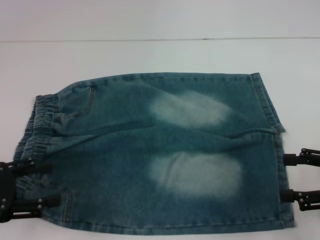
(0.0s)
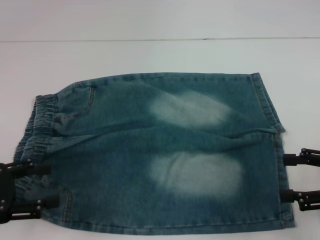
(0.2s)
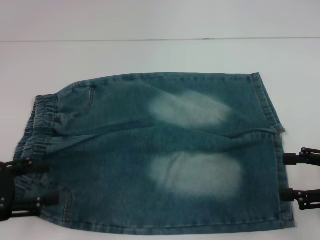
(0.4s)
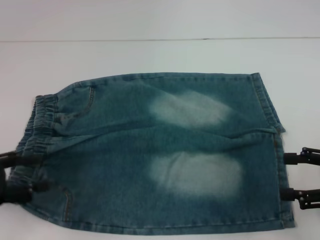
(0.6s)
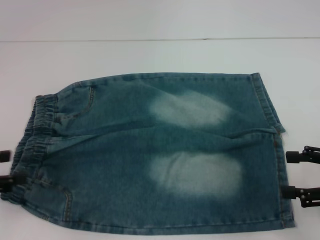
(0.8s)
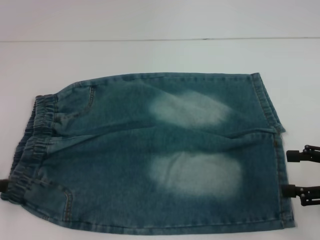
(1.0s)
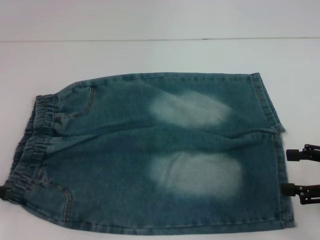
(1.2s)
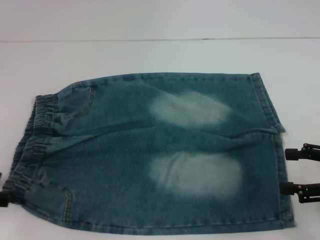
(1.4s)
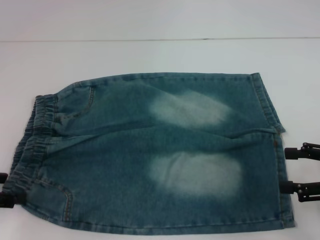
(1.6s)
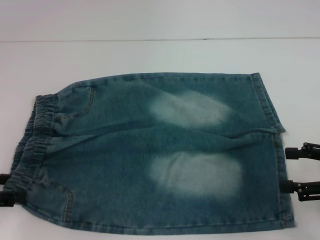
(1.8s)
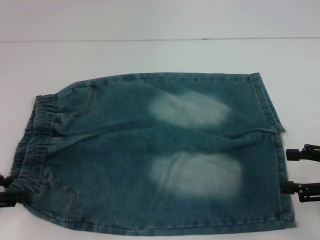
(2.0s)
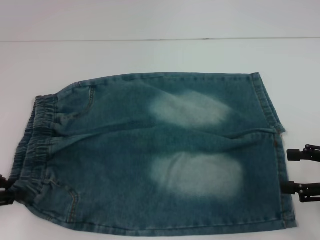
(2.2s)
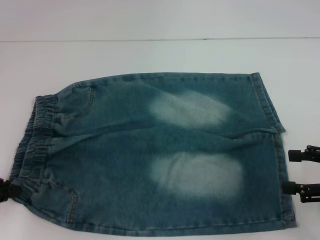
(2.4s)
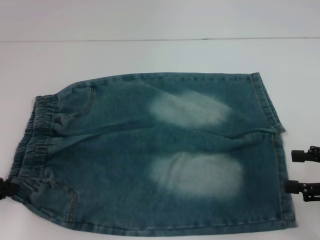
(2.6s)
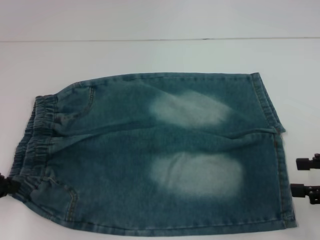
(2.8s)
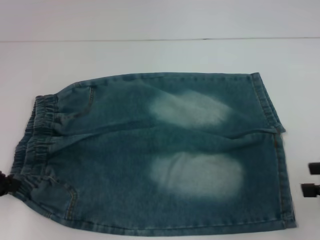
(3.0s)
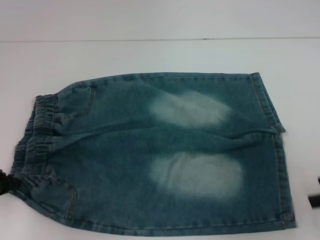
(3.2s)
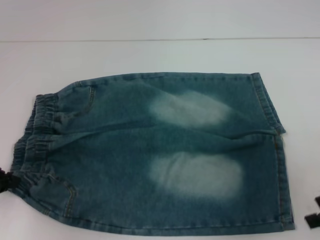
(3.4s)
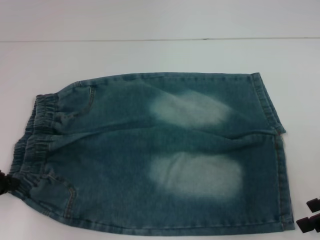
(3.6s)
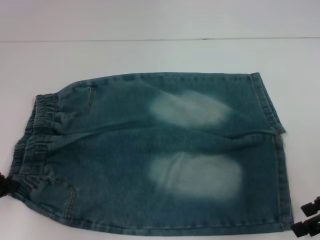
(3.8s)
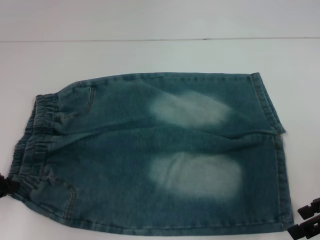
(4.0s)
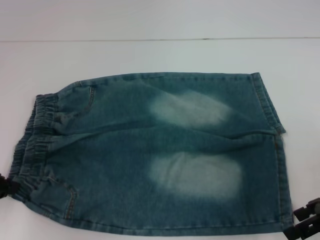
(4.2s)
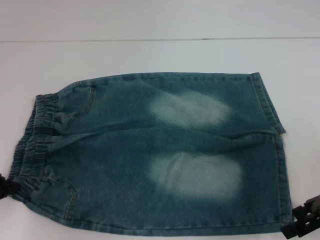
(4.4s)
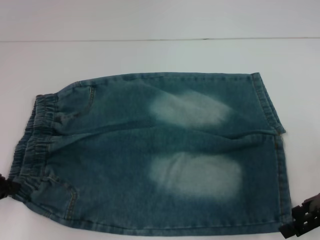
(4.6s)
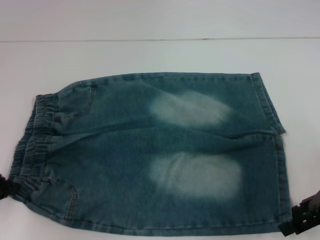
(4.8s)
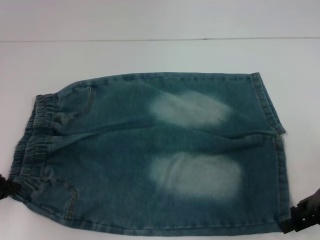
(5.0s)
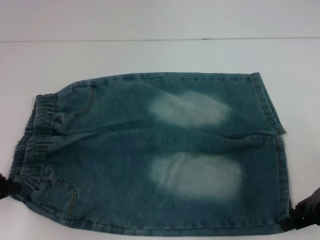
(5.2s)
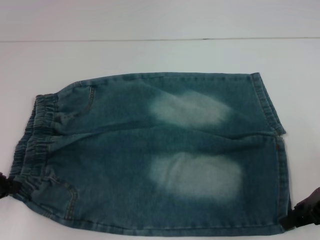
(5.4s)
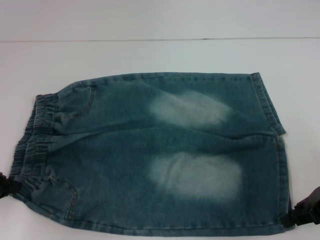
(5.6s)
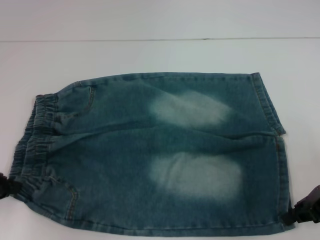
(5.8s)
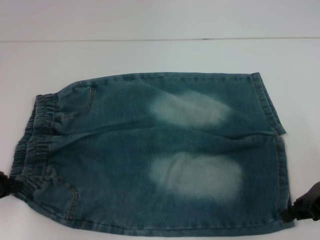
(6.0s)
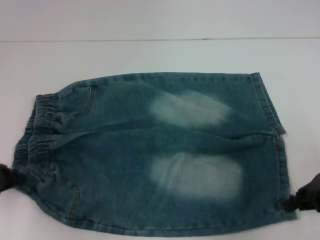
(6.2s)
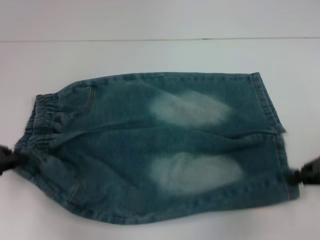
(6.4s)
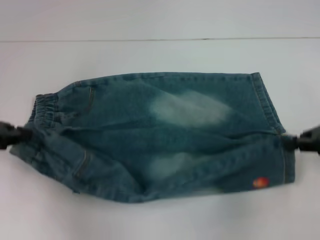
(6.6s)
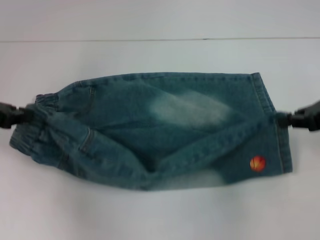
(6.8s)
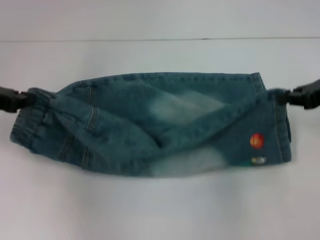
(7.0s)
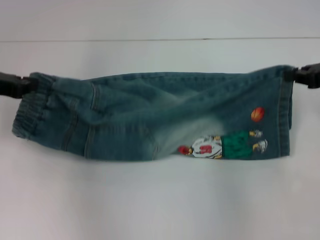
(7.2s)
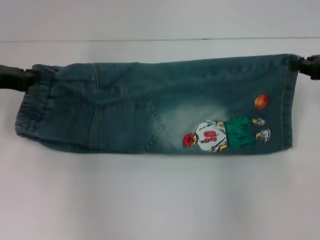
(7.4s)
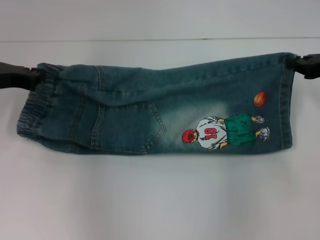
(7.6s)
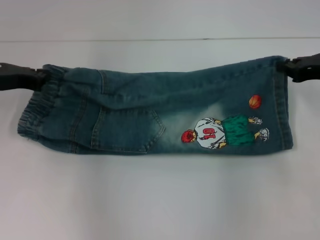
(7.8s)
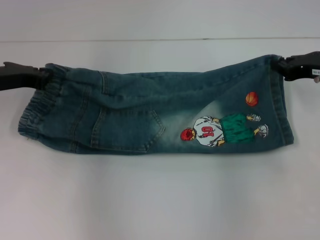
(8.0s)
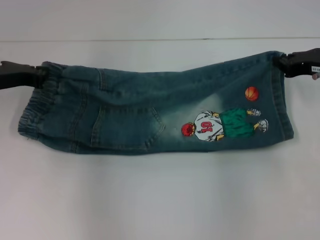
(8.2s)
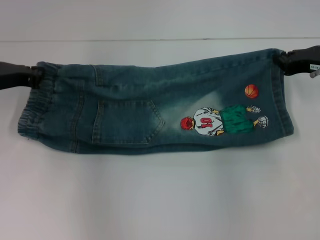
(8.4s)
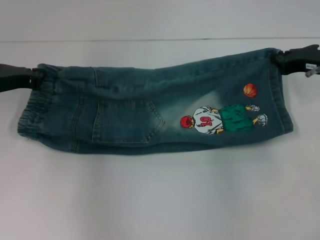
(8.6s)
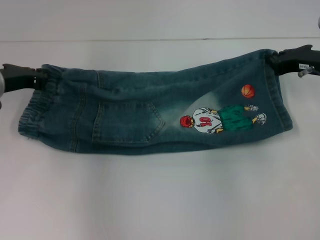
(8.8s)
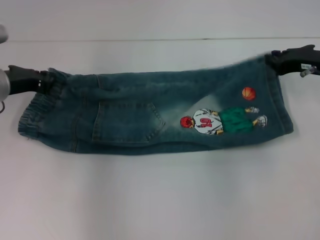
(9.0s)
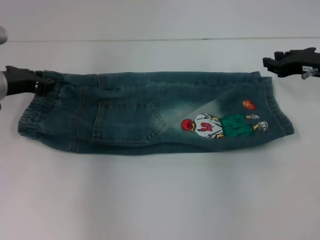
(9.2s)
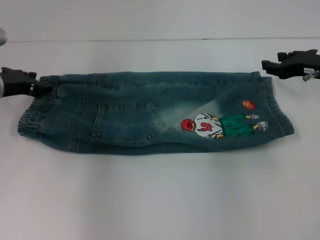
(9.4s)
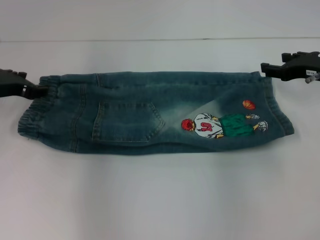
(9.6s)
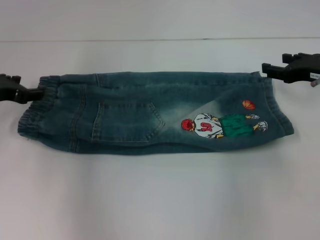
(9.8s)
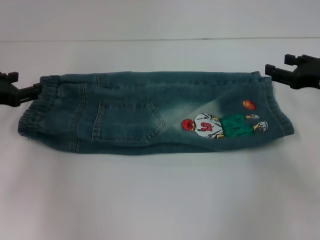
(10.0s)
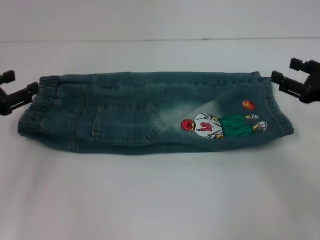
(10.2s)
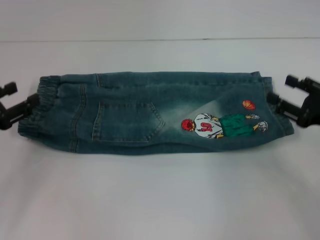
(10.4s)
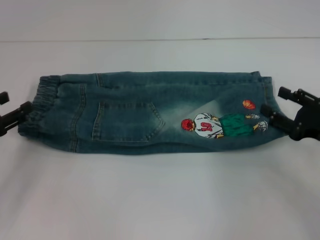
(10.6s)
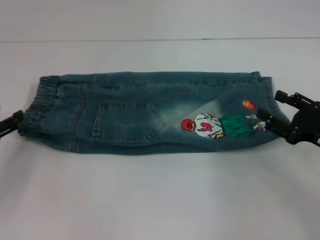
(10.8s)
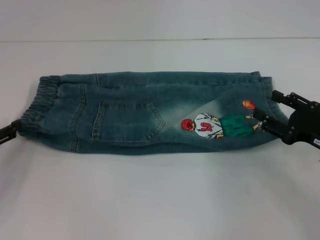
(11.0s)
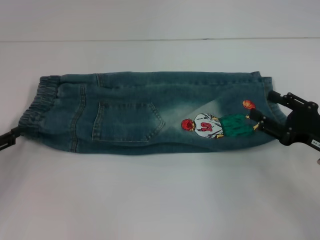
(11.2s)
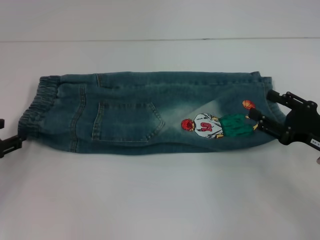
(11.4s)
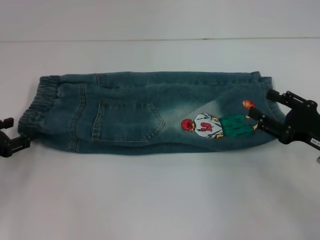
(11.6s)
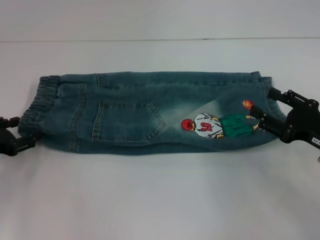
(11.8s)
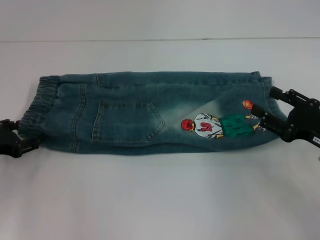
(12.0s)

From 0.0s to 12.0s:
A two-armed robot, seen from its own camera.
Step, from 0.0s to 2.2s: Hold the lower left waistband with your left hand.
Step, from 2.4s to 5.6s: Grab the lower right pant leg with your right hand.
Step, from 6.0s to 9.0s: Fold upward with your right hand.
From 1.6s to 3.0s: The left gripper closes.
From 3.0s to 4.4s: The right gripper shifts approximately 5 cm to the left.
From 4.4s to 6.0s: The right gripper closes its fingers.
From 6.0s to 7.6s: The right gripper travels forward and upward by roughly 10 cm, while the left gripper shifts approximately 10 cm forward.
From 7.6s to 9.0s: The right gripper ends up approximately 5 cm from where it was.
From 9.0s to 10.4s: The right gripper heads backward, covering some 10 cm, and opens up. The left gripper heads backward and to the left, covering about 15 cm, and opens up.

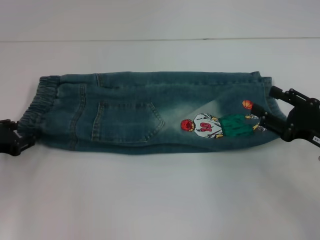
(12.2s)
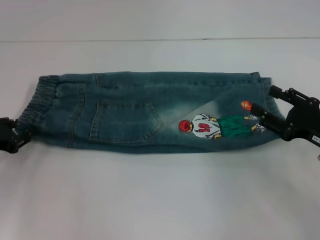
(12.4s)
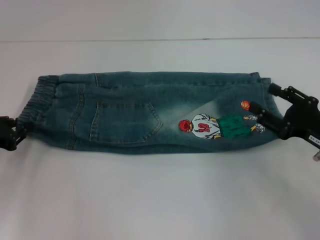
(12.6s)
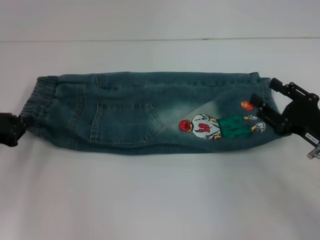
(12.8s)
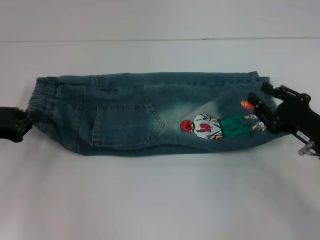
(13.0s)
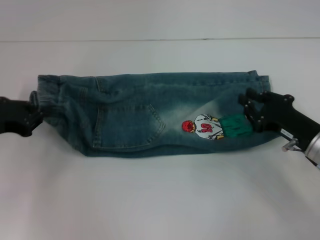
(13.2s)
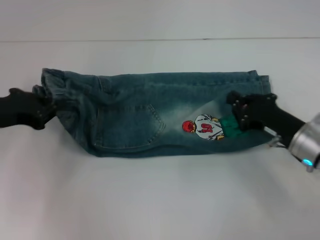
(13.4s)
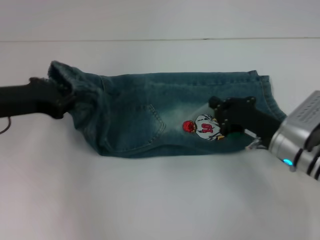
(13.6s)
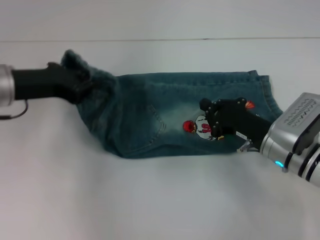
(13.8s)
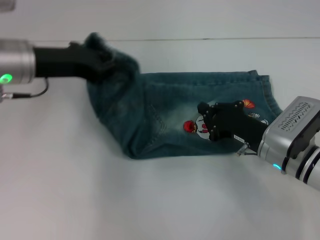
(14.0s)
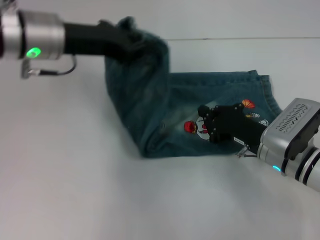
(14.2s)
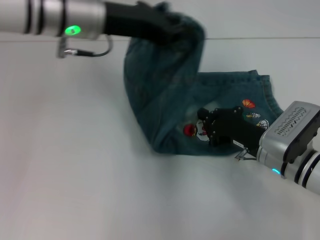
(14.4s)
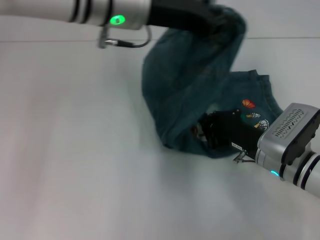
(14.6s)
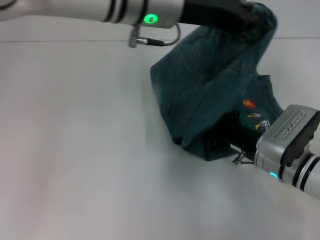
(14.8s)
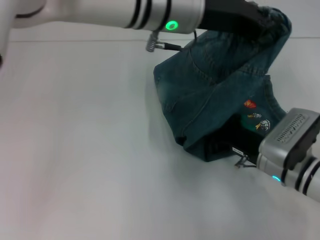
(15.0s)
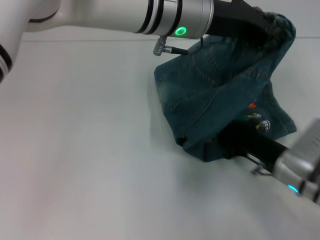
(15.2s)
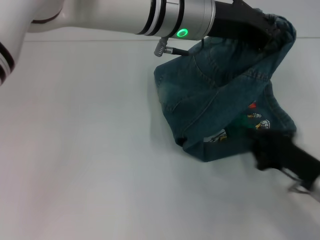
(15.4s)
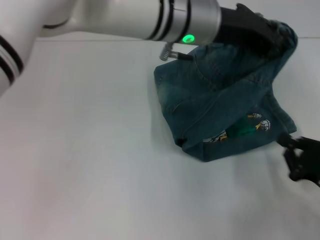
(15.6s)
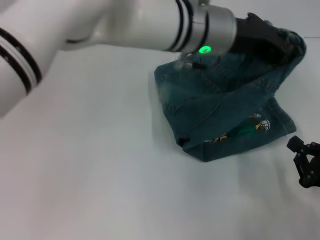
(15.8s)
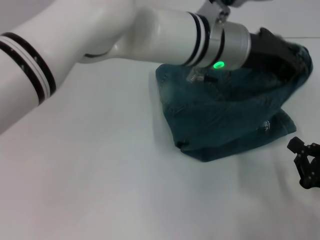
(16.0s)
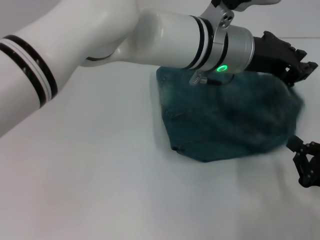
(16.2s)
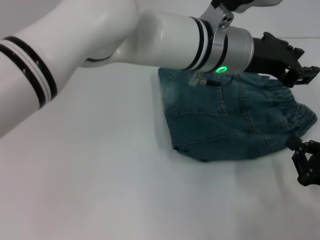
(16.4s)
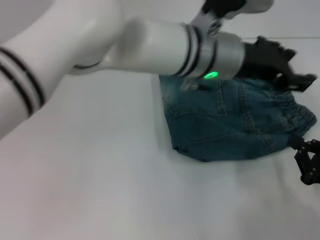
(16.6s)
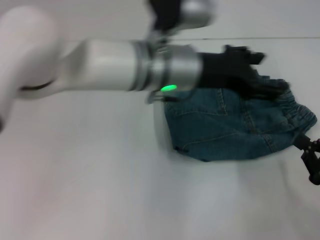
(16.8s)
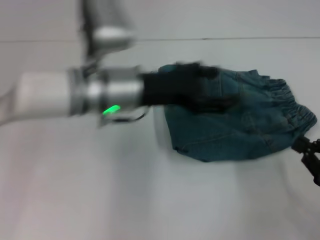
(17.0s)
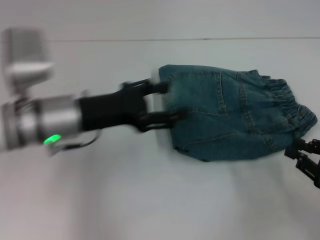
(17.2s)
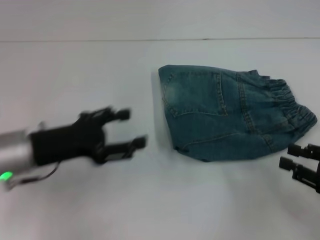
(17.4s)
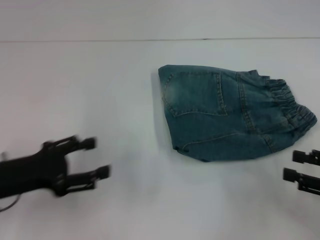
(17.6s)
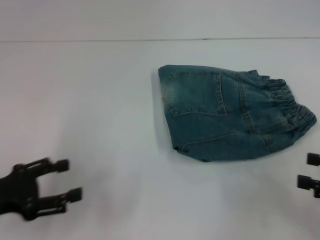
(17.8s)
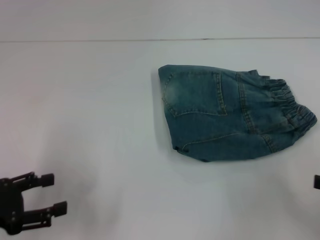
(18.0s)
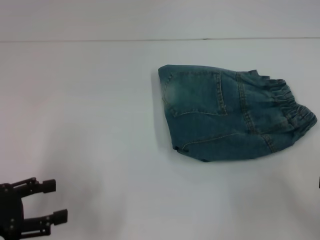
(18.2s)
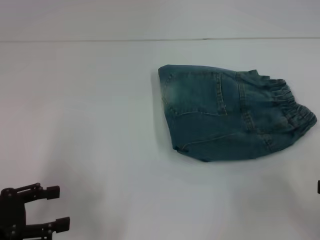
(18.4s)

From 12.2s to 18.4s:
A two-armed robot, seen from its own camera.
Step, from 12.8s to 15.0s: Press the middle of the pants with your right hand.
Step, from 15.2s to 16.2s: Fold to the right with your left hand.
From 12.2s to 13.8s: The right gripper heads to the left, covering about 10 cm, and closes. The left gripper is displaced upward, to the right and forward by approximately 15 cm, and closes up.
From 13.8s to 15.4s: The right gripper heads backward and to the right, covering about 10 cm. Meanwhile the left gripper travels to the right by approximately 25 cm.
From 15.4s to 16.8s: The left gripper is displaced downward by some 5 cm, and opens, while the right gripper moves to the right, approximately 5 cm.
From 16.8s to 18.4s: The left gripper is displaced to the left and backward by about 35 cm, while the right gripper shifts about 10 cm upward and to the right, and opens its fingers.

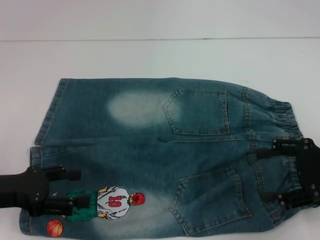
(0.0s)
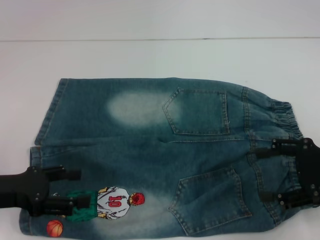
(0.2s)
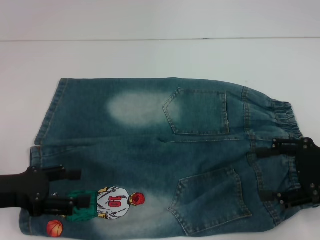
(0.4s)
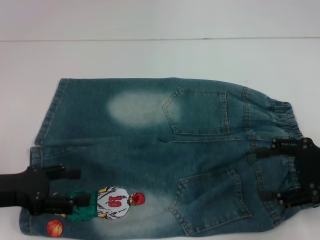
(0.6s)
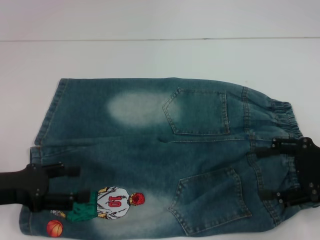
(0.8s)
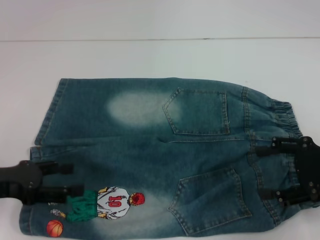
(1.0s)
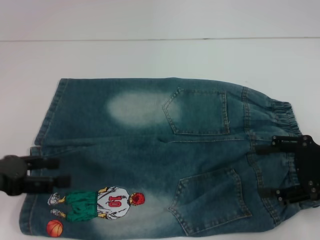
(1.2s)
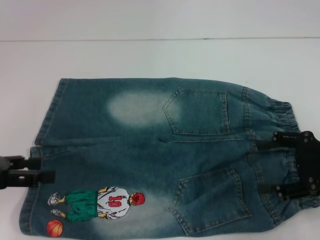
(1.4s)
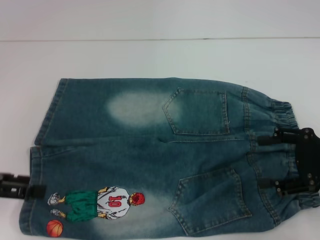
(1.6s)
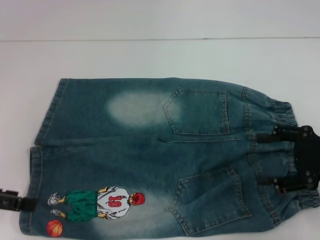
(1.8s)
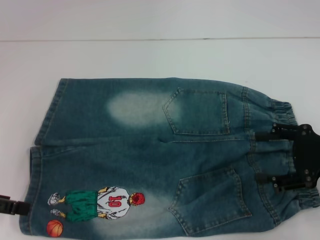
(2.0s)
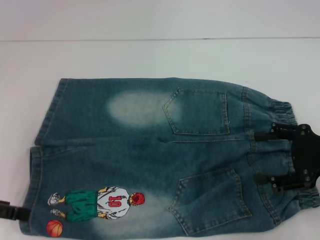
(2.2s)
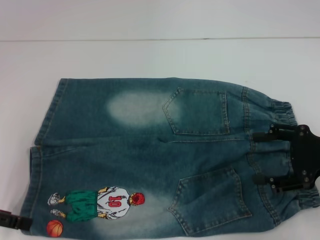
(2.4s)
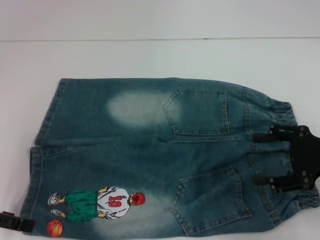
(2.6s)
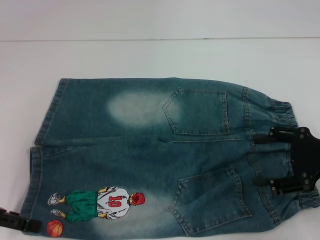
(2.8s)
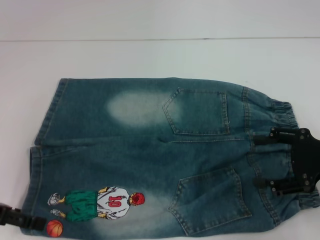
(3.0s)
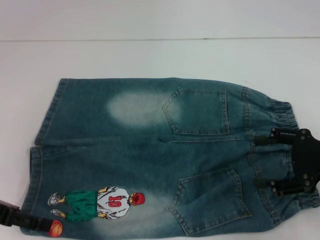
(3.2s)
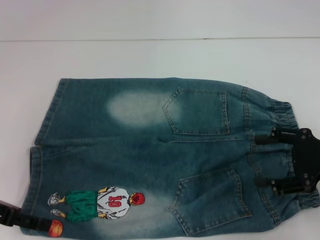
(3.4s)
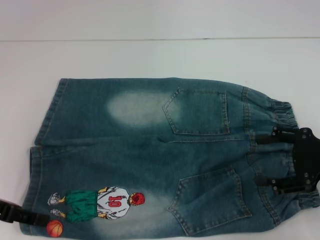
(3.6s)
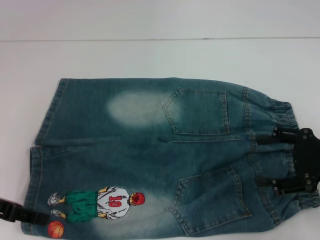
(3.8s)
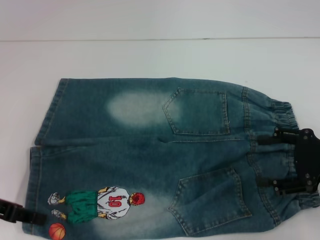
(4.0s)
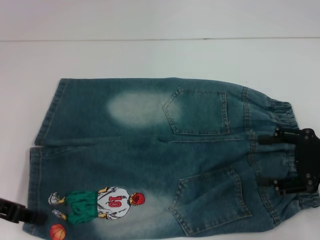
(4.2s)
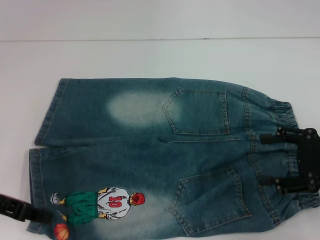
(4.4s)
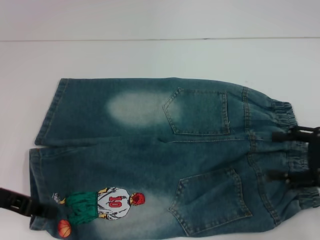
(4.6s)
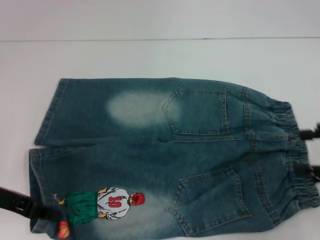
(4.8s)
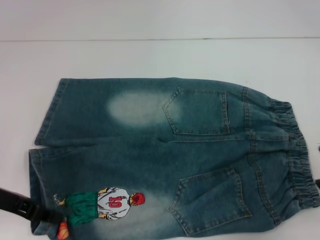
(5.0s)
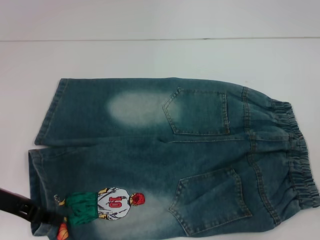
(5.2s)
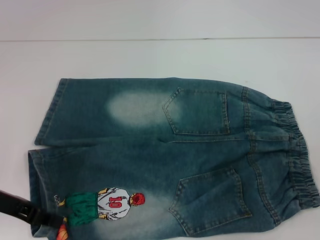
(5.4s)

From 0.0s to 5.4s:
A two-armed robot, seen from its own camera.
Step, from 0.0s to 4.2s: Grab the lower left pant leg with your left hand.
From 0.0s to 1.4s: The left gripper ends up about 5 cm from where it was.
From 2.8s to 4.0s: The left gripper closes its fingers.
From 4.0s to 5.4s: The right gripper travels upward by approximately 5 cm. The left gripper closes its fingers.
